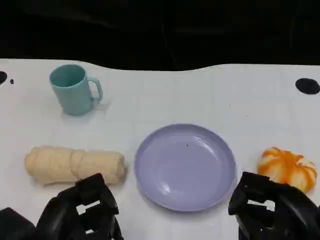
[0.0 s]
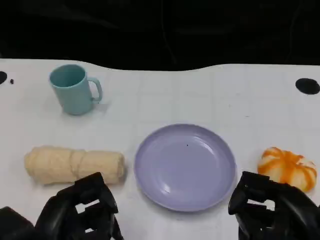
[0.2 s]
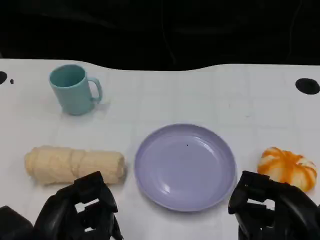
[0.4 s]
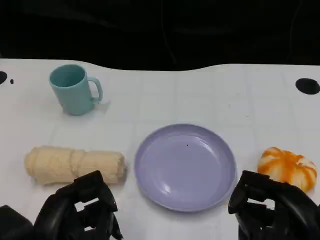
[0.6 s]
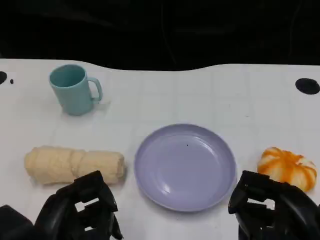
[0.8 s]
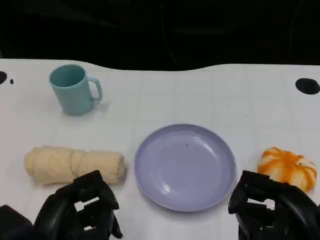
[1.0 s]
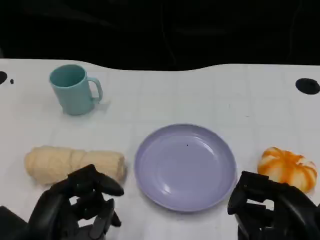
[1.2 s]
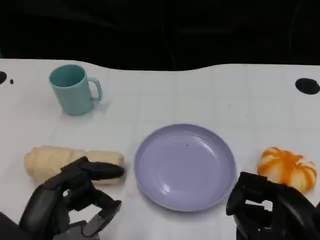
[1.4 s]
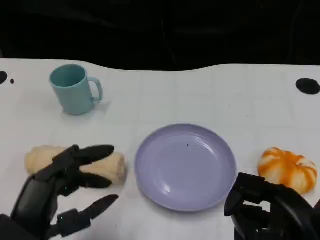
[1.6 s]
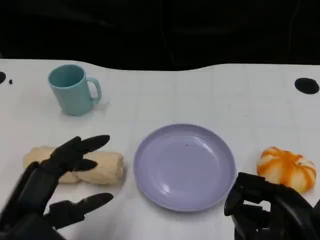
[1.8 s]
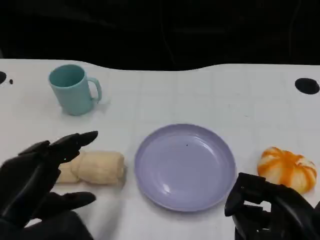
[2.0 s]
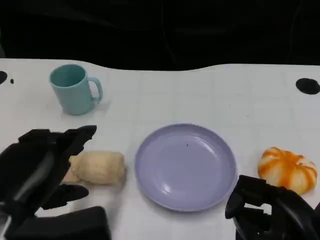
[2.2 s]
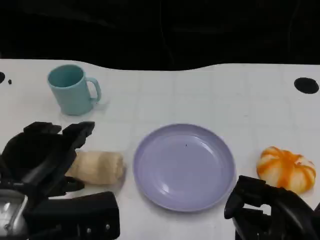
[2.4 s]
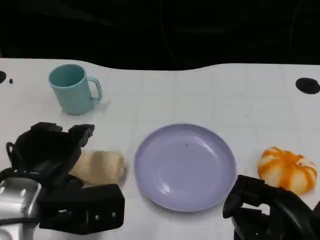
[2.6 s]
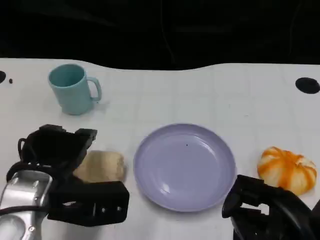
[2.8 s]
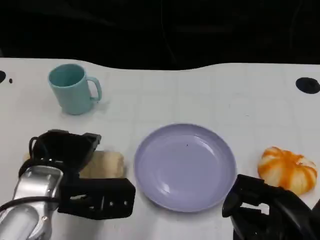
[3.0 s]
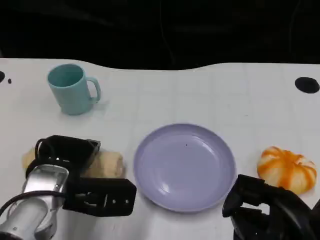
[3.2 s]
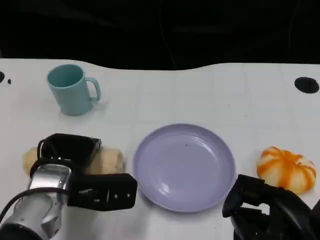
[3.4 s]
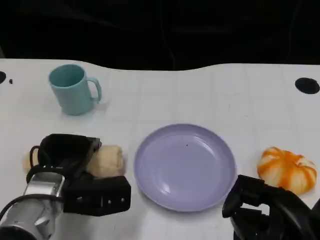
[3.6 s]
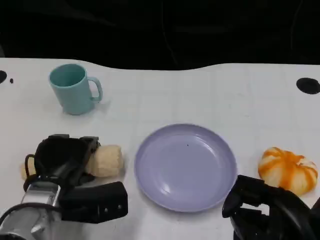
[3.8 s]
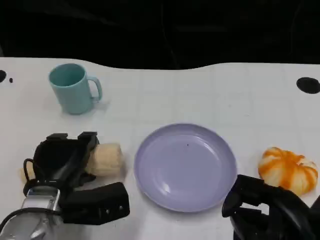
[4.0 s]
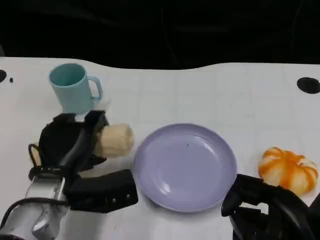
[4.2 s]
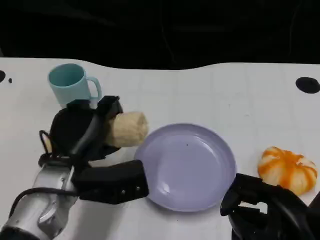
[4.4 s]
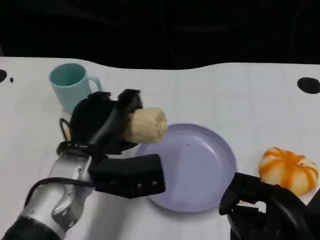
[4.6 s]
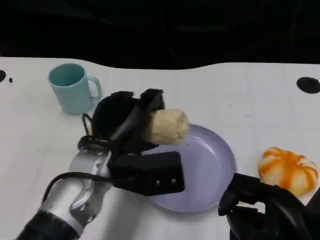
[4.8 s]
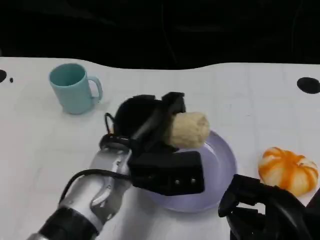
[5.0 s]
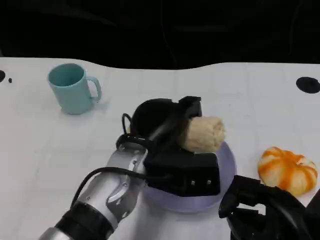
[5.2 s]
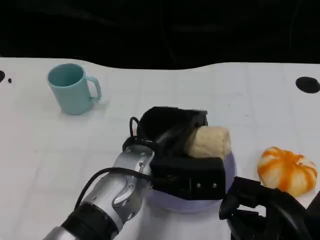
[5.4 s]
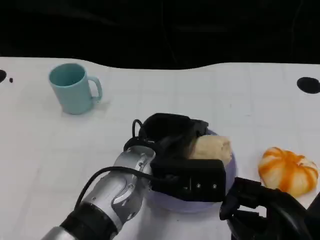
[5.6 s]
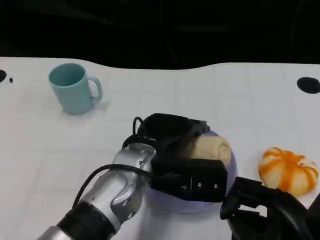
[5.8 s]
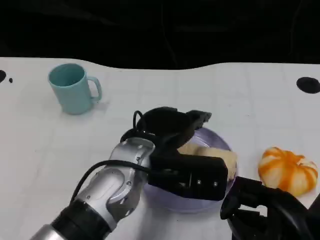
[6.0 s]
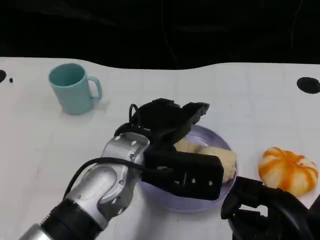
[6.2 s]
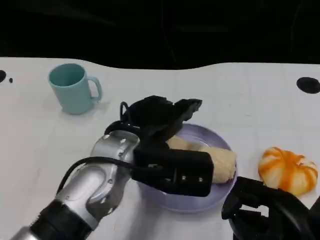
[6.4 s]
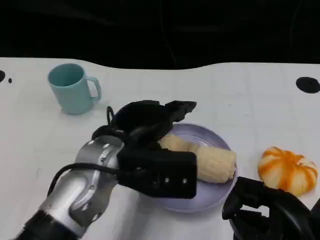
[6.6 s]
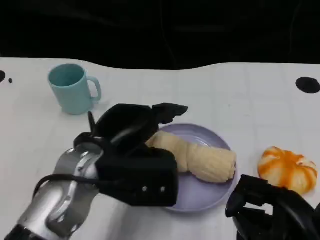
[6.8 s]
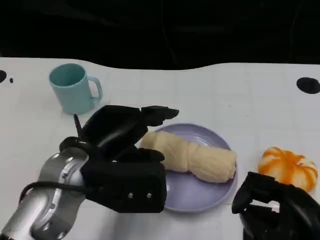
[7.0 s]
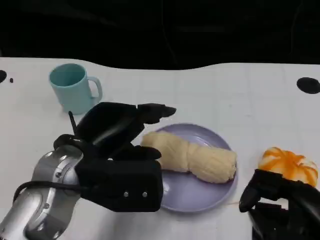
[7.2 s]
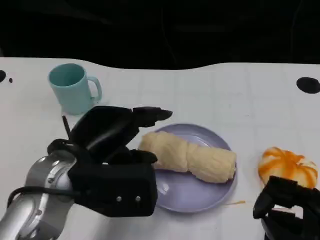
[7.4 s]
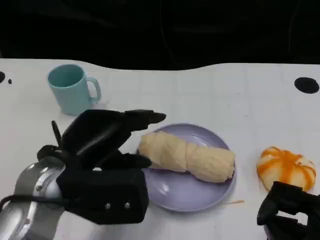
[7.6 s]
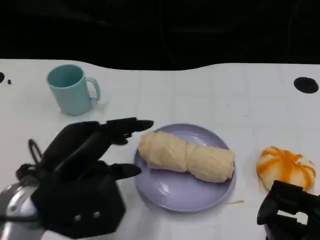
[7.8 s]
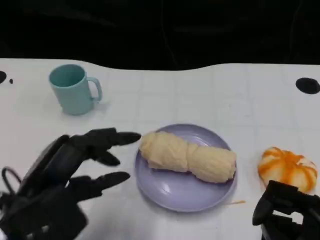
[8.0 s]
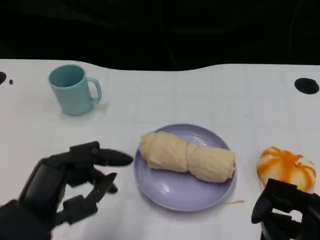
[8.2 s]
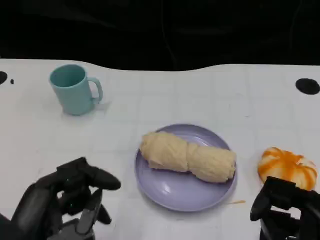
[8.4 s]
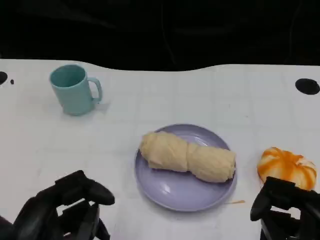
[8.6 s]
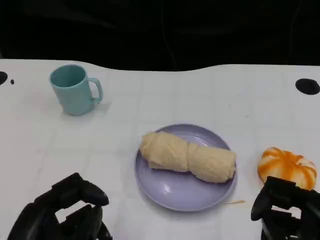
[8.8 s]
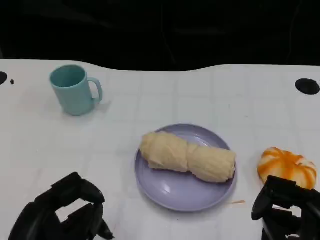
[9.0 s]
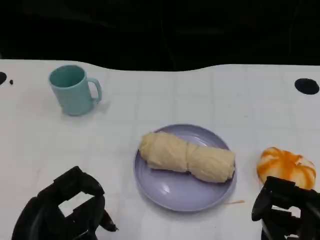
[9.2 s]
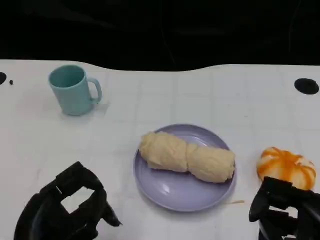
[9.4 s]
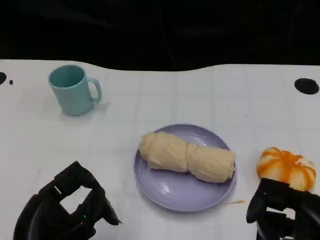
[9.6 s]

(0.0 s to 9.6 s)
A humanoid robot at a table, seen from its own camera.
Task of the whole recording: Grasp the towel on the left side of the plate with the left hand and place it into the plate.
1.6 s - 3.2 s: The left hand heads forward, covering about 15 cm.
3.2 s - 4.8 s: The left hand goes about 5 cm to the right.
6.4 s - 8.0 s: The left hand heads to the left and backward, covering roughly 15 cm.
8.0 s - 9.6 s: The left hand changes place by about 5 cm.

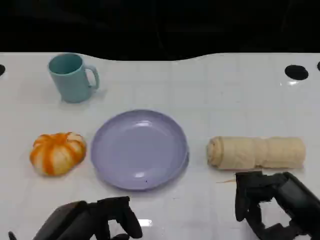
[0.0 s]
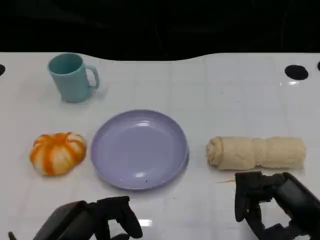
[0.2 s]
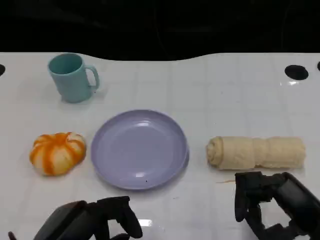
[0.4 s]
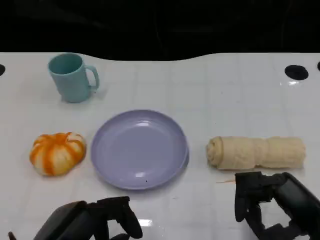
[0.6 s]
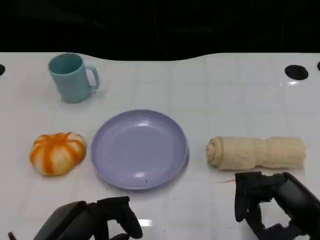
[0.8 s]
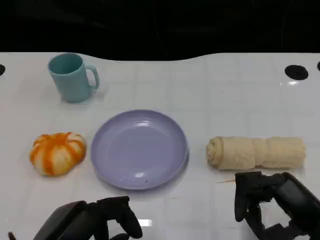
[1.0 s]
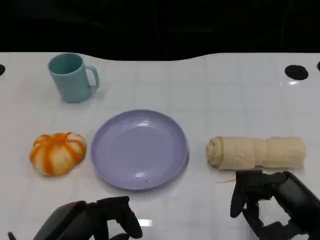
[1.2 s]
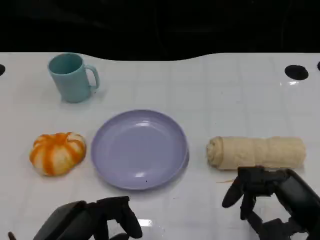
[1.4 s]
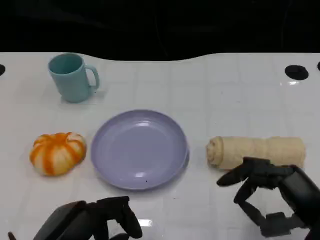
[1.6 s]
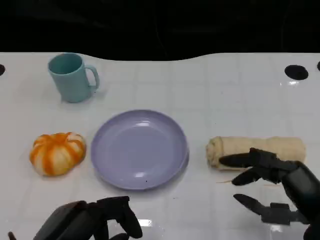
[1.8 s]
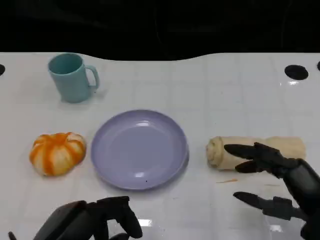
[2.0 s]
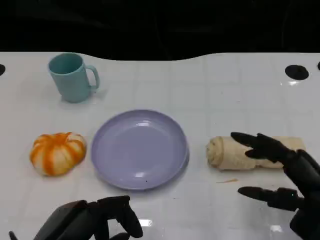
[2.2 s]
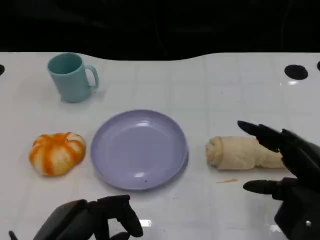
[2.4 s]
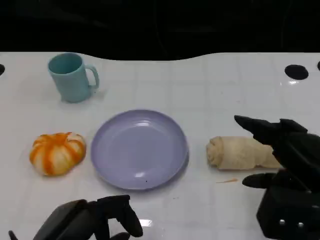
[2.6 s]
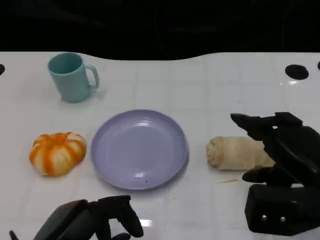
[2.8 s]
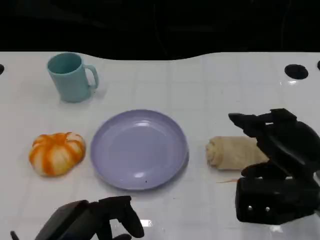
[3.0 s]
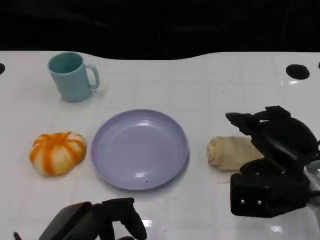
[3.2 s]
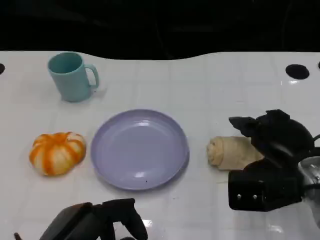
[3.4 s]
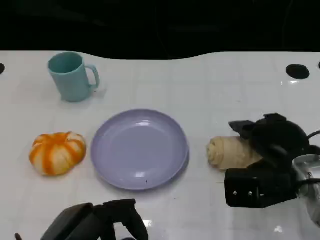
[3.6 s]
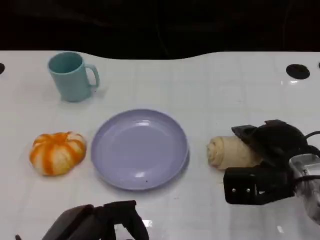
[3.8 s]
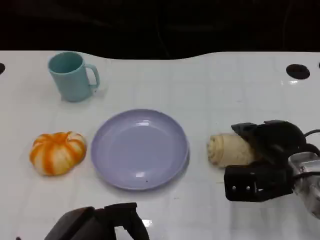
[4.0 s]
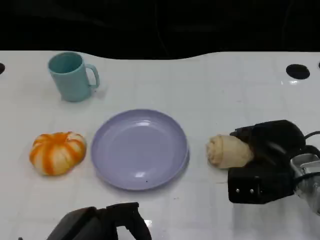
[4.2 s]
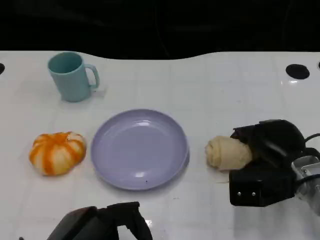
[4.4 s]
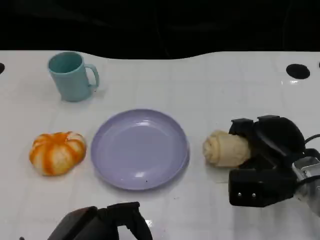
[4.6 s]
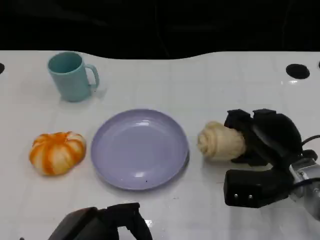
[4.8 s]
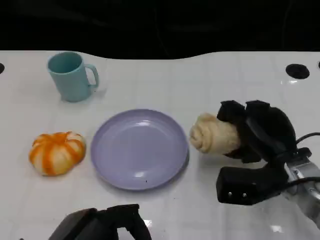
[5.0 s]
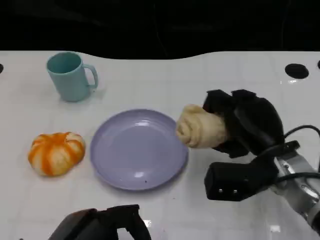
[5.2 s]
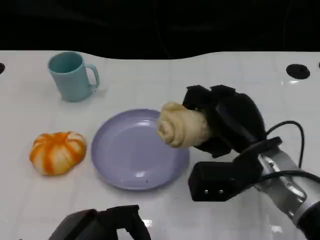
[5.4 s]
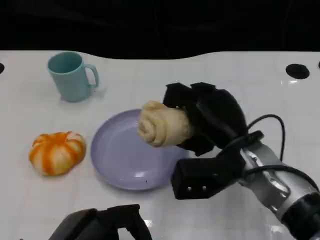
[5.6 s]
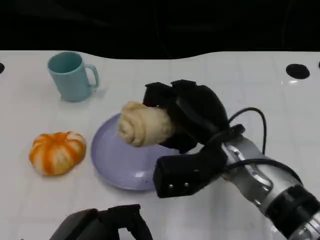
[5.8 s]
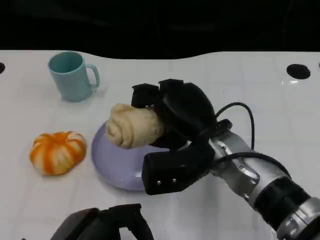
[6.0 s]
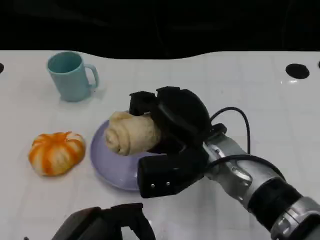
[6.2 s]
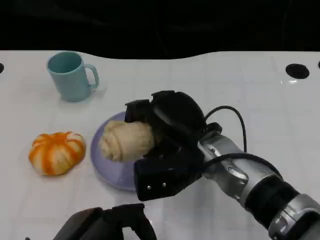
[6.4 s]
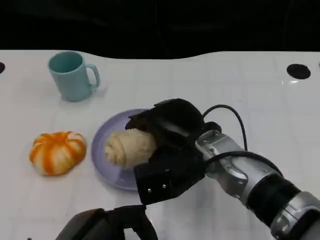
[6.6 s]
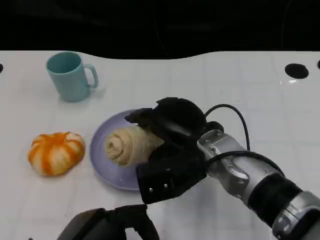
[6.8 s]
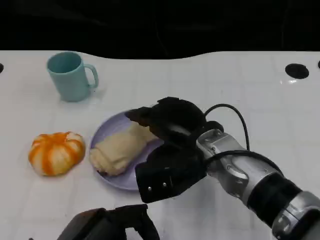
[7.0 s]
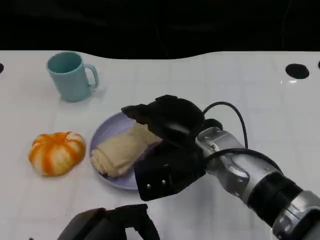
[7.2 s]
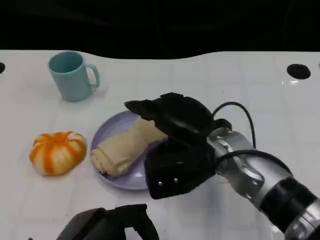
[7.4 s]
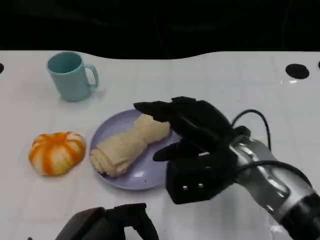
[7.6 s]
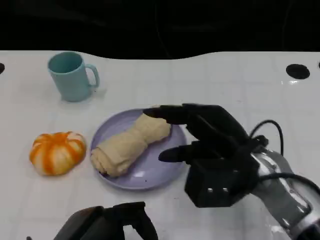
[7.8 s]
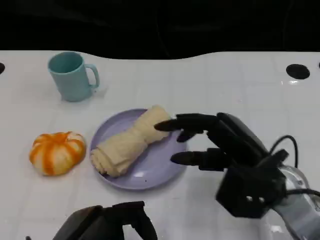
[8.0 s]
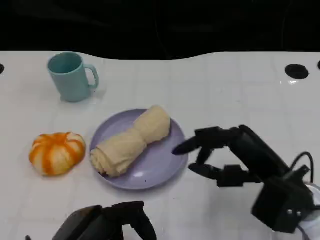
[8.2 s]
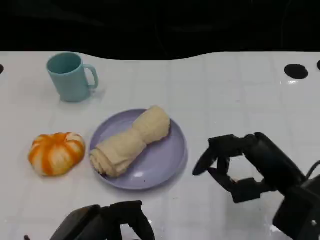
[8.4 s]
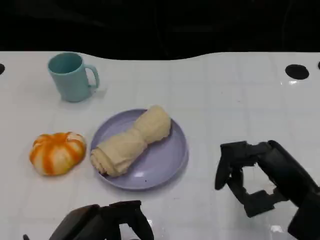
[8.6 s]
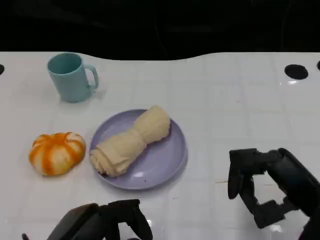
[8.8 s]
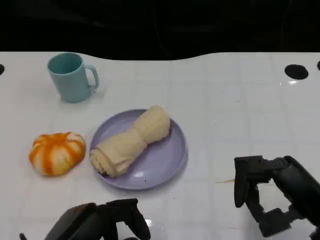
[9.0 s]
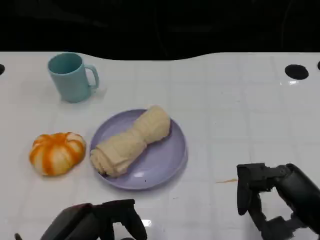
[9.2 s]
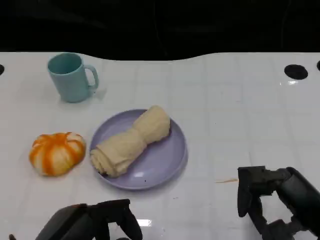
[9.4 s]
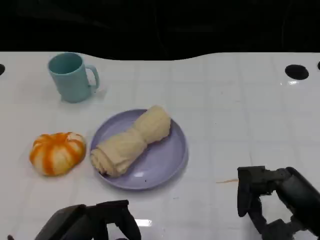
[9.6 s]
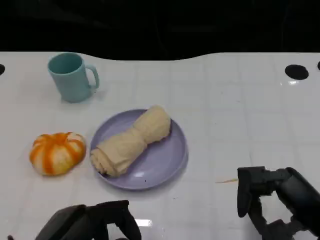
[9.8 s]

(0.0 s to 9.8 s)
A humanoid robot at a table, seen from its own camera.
Task of the whole recording: Grasp the towel on the left side of the plate with the left hand and place it into the plate.
0.0 s - 1.4 s: Both hands stay about where they are.
1.4 s - 2.8 s: The right hand travels forward by approximately 5 cm.
2.8 s - 4.2 s: The right hand goes approximately 10 cm downward and forward.
4.2 s - 5.6 s: The right hand is displaced to the left and upward by about 10 cm.
7.0 s - 8.4 s: The right hand shifts approximately 15 cm to the right and backward.
8.4 s - 9.8 s: The right hand shifts by approximately 5 cm.
